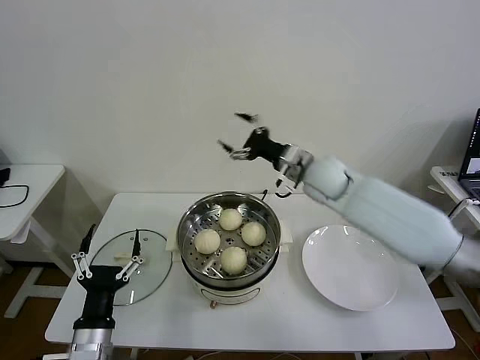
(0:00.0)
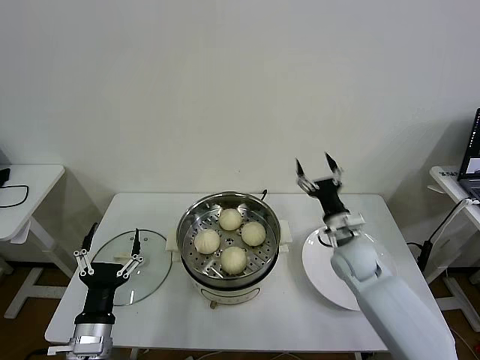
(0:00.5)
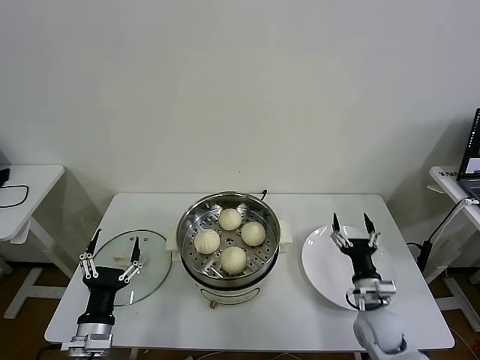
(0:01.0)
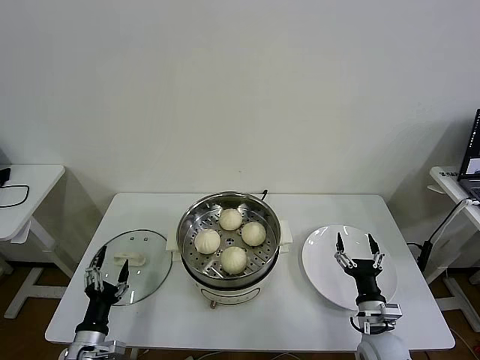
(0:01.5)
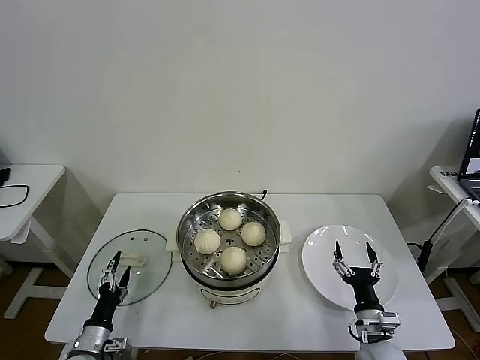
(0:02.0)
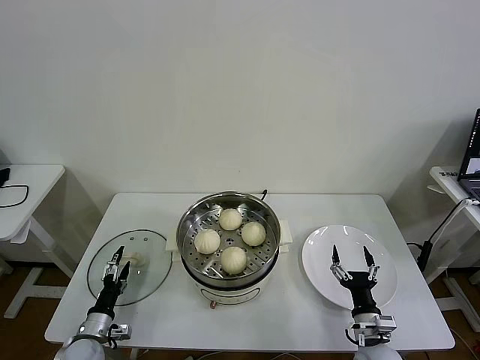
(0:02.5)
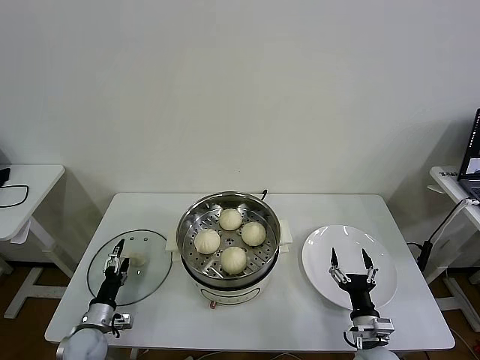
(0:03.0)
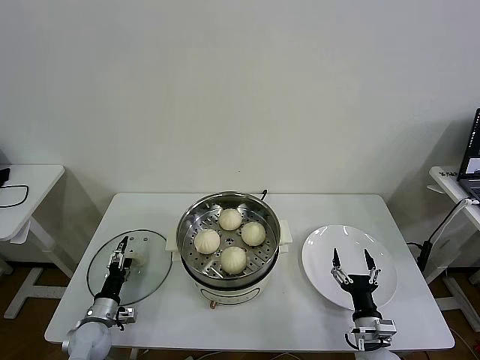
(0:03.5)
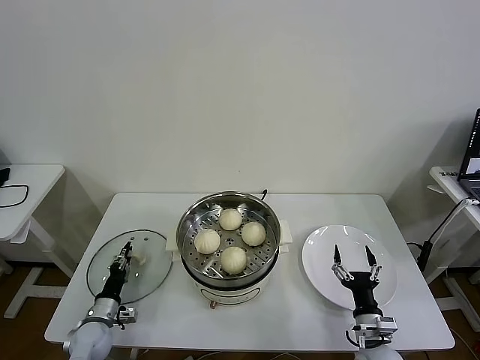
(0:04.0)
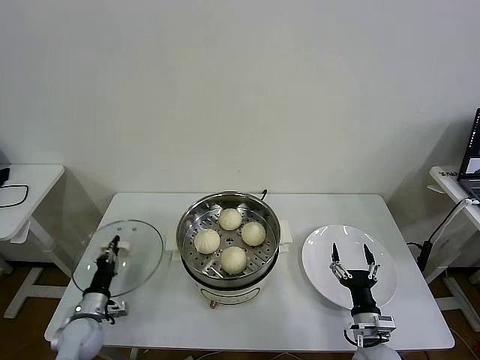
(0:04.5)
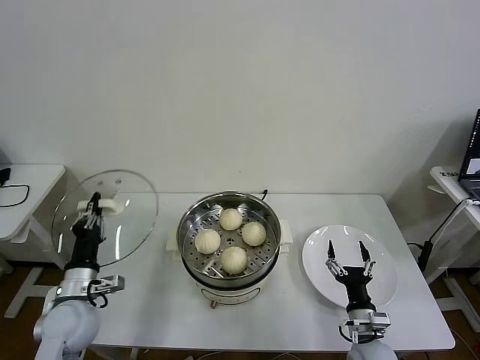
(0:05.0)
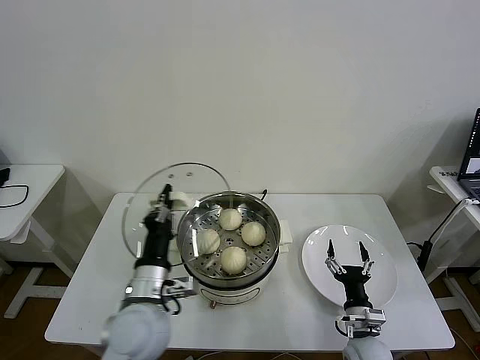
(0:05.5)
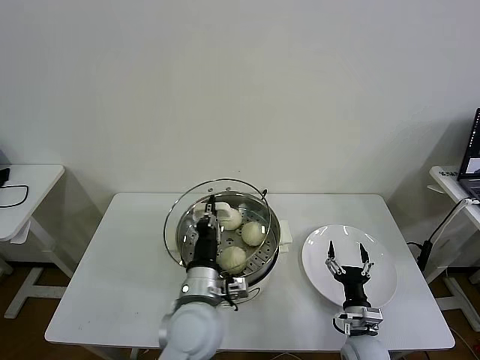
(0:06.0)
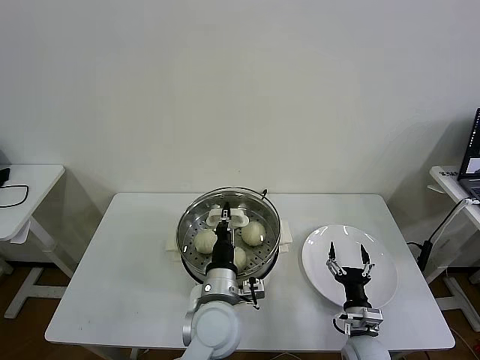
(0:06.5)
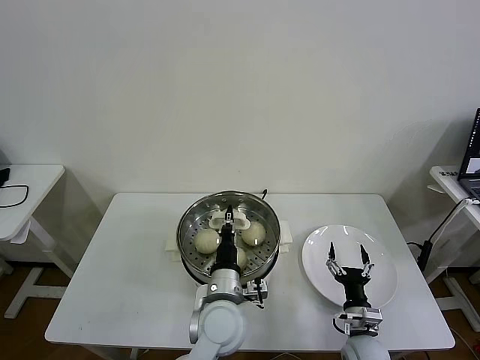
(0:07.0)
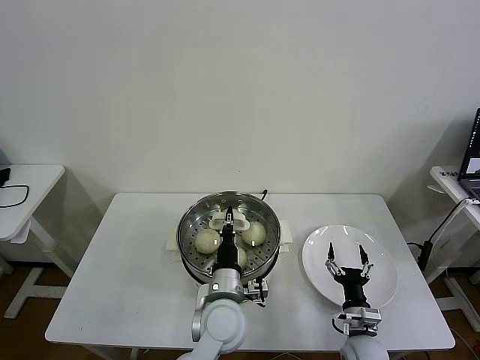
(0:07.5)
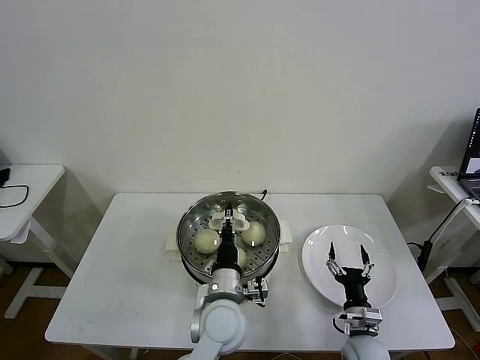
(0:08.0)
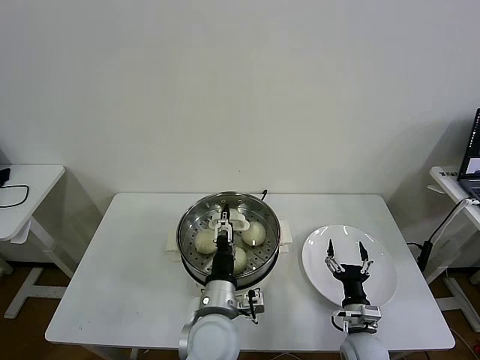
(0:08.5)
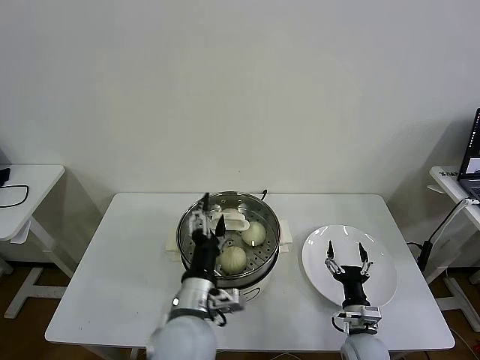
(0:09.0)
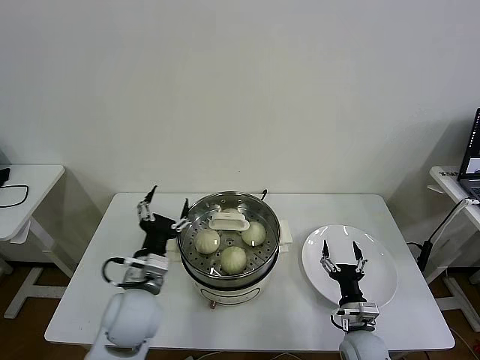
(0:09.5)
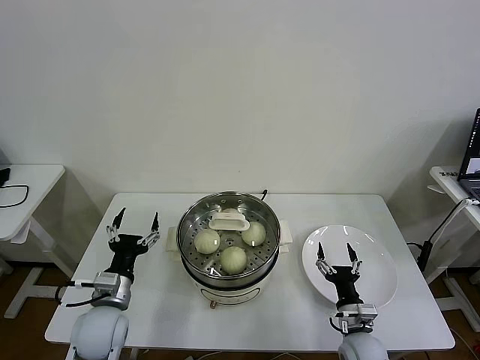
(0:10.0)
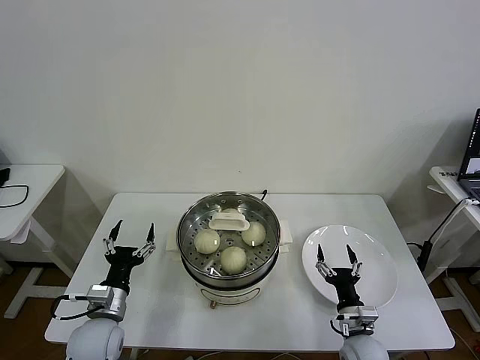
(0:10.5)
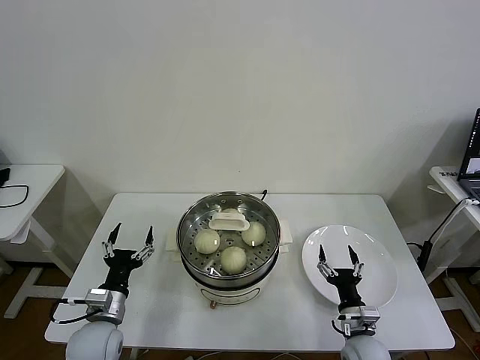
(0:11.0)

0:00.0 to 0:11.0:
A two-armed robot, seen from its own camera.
Task of the whole recording: take steamed baozi put them in steamer then cover it.
Step, 0:00.0 to 0:04.5: Grasp the pot lid with left gripper.
Step, 0:05.0 to 0:08.0: Place the pot lid on the steamer with left gripper.
0:00.0 to 0:02.0: The left gripper moves downward and to the left, some 20 cm. Meanwhile the right gripper travels backward, downward and to the right by about 40 cm.
0:02.0 to 0:03.5: The left gripper is displaced forward by some 10 cm.
0:03.5 to 0:05.5: The left gripper heads upward and to the right, covering roughly 30 cm, and closes.
0:05.5 to 0:07.5: The left gripper is displaced to the right and downward by about 15 cm.
0:07.5 to 0:09.0: The left gripper moves upward and backward, approximately 10 cm, and opens up.
0:09.0 to 0:11.0: The left gripper heads to the left and downward, covering roughly 25 cm.

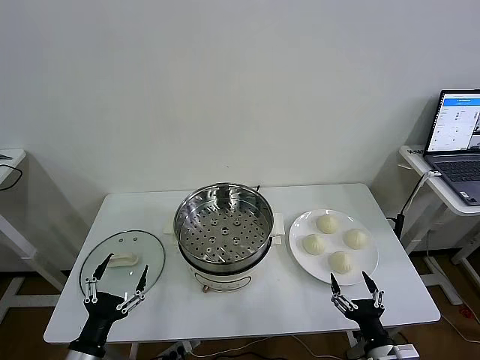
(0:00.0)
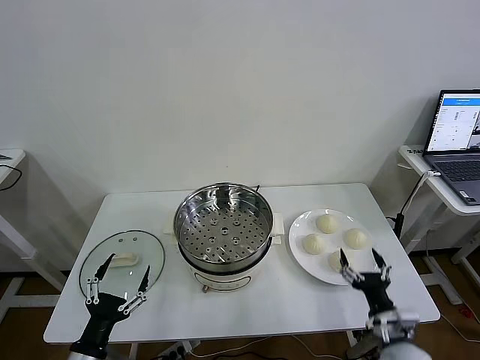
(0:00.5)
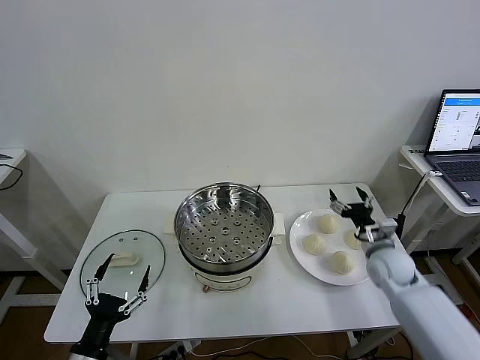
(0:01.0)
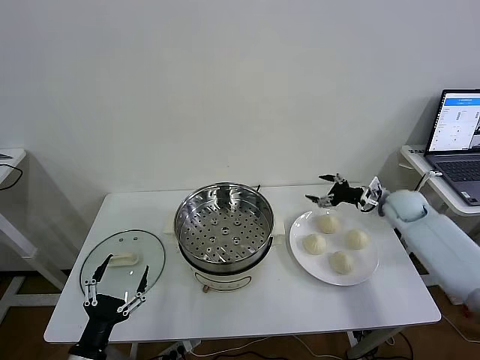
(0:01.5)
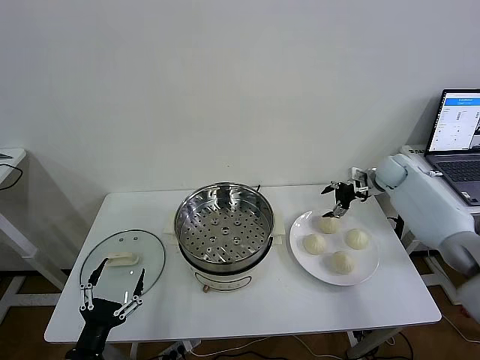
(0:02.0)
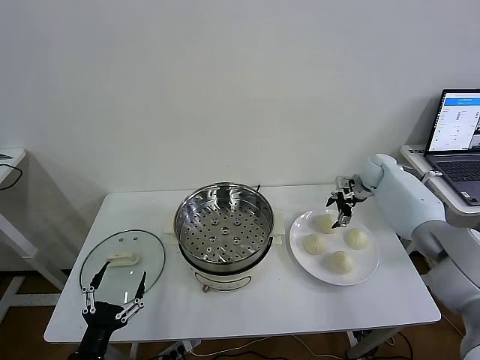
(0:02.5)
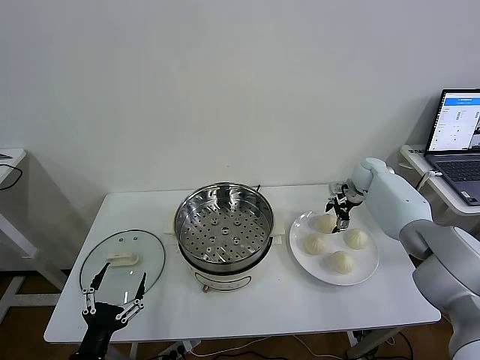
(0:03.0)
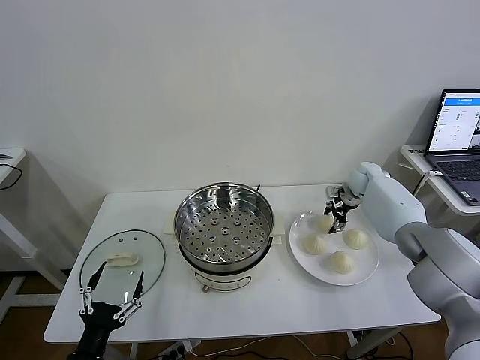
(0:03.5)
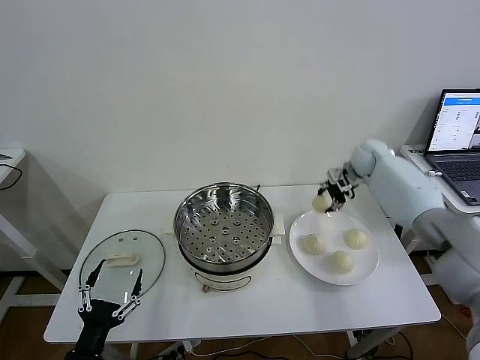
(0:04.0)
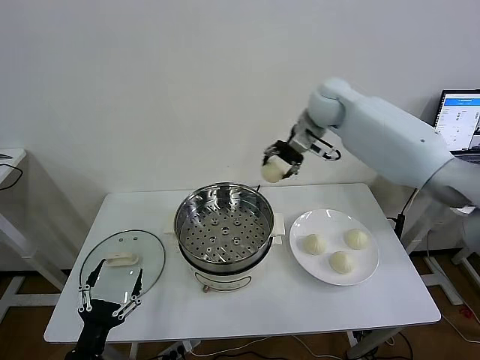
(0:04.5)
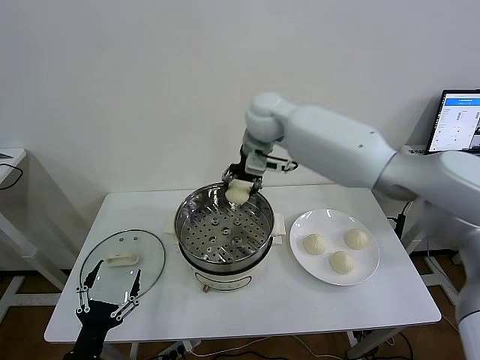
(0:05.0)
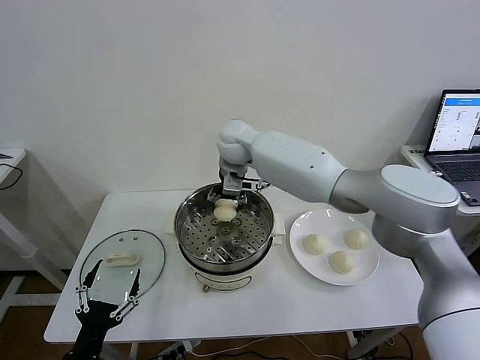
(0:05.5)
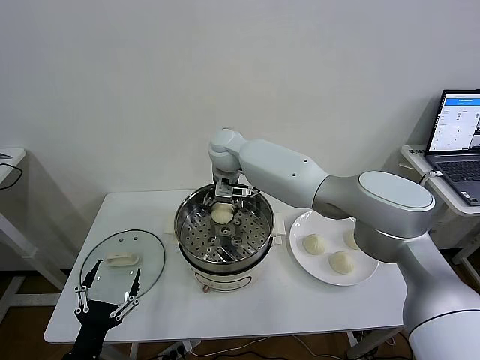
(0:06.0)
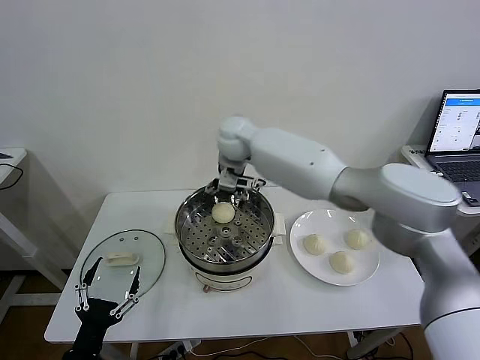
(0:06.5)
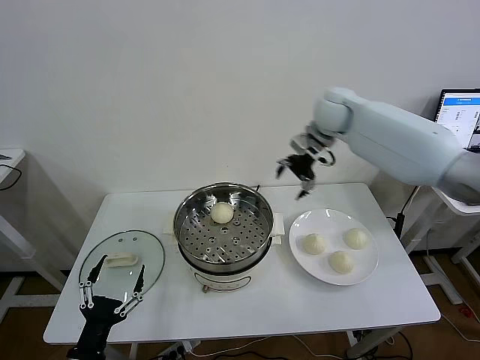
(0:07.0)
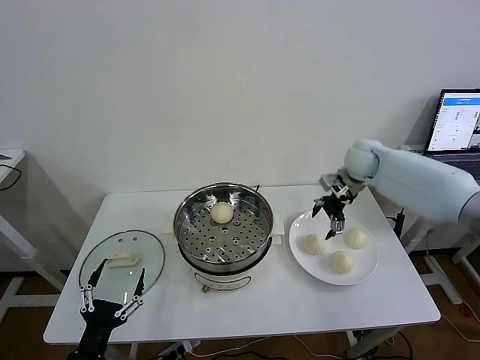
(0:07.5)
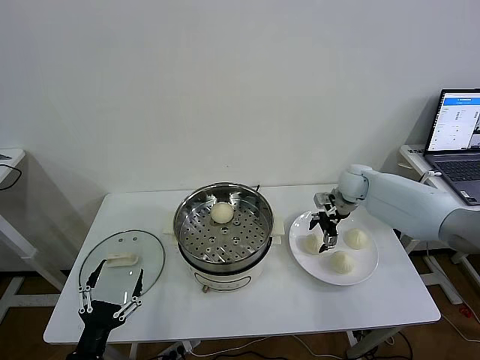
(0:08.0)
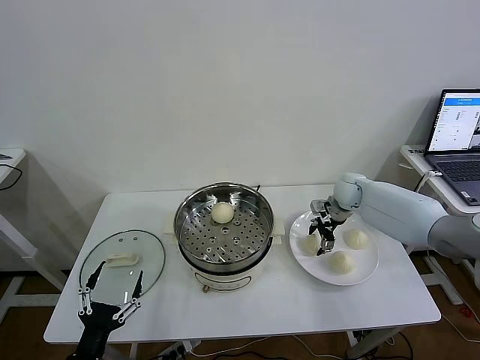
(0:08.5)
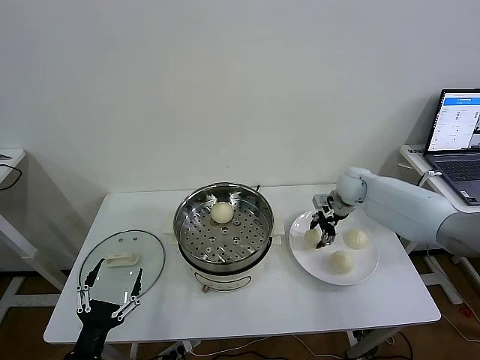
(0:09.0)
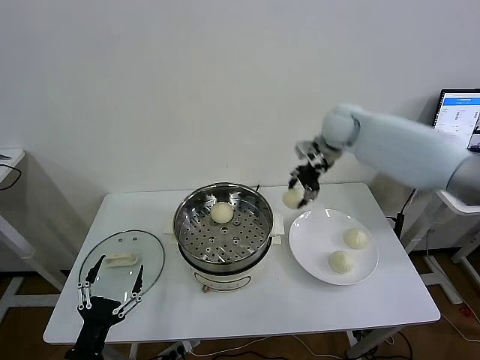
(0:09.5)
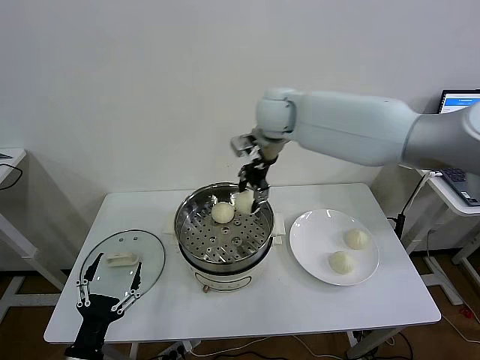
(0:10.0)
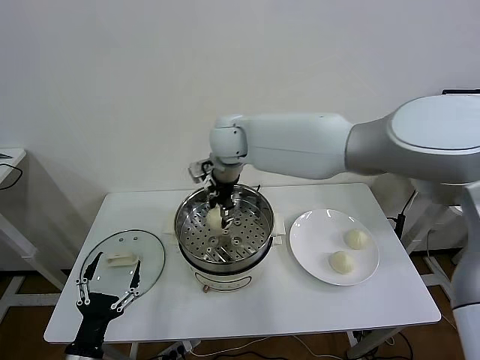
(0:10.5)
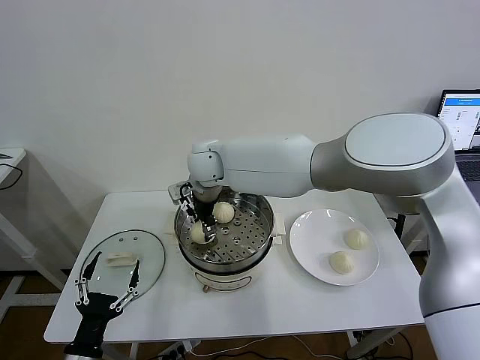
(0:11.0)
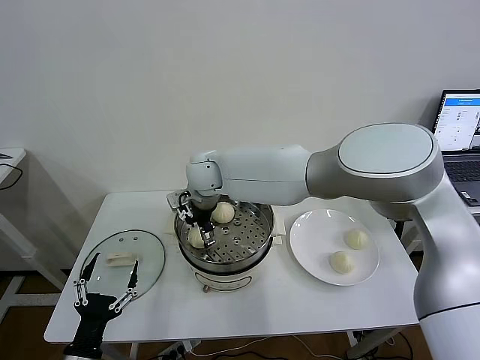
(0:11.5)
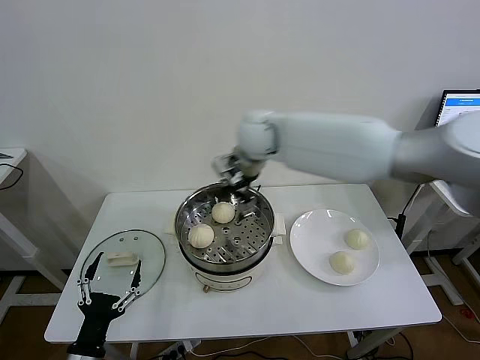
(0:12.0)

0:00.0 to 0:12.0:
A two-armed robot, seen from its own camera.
Task of the whole recording: take steamed baozi put them in steamer then cover it.
Step, 0:00.0 to 0:03.5: Grasp the baozi in the plate with right gripper.
Step, 0:04.0 to 0:06.0: Place the baozi on the steamer with right gripper.
Step, 0:06.5 to 0:08.5: Grasp the baozi in the plate with right gripper.
Step, 0:09.0 to 0:11.5: Place the baozi on the steamer with right gripper.
0:02.0 to 0:04.0: The right gripper shifts about 10 cm to the left and upward, and closes up.
0:04.0 to 0:06.0: The right gripper moves to the left, about 35 cm, and opens its fingers.
0:06.0 to 0:08.0: The right gripper is displaced to the right by about 35 cm.
0:08.0 to 0:10.0: The right gripper heads to the left and upward, covering some 35 cm, and closes its fingers.
0:10.0 to 0:12.0: The right gripper travels to the left and back again, roughly 15 cm each way, and opens its fingers.

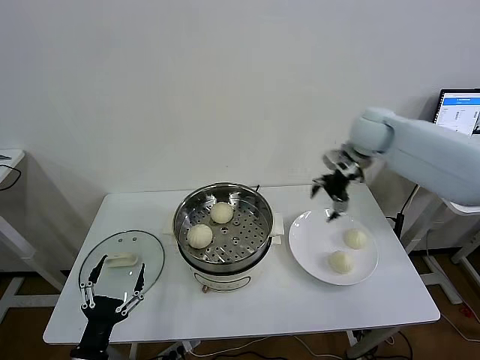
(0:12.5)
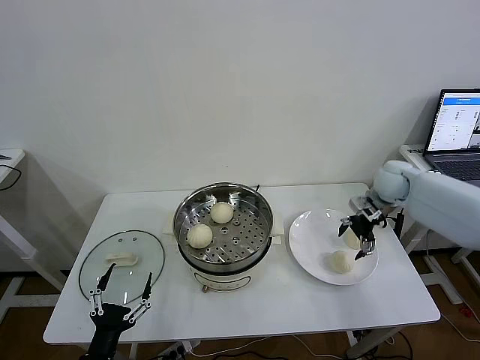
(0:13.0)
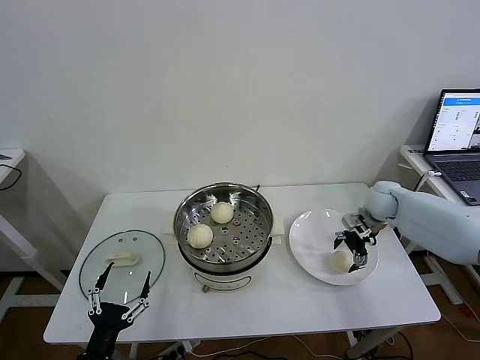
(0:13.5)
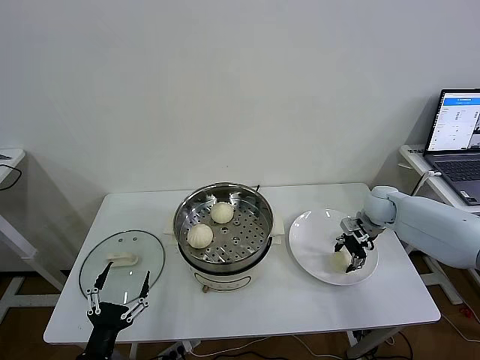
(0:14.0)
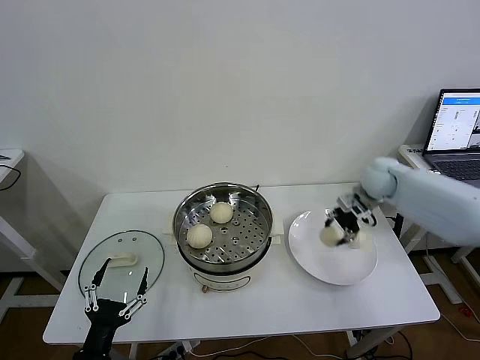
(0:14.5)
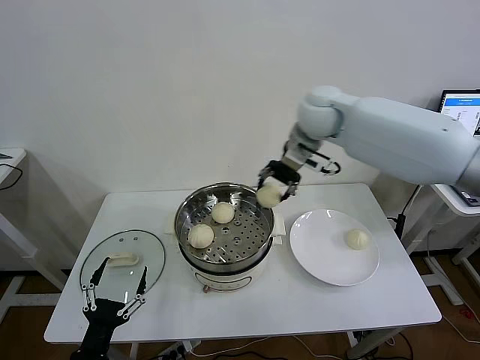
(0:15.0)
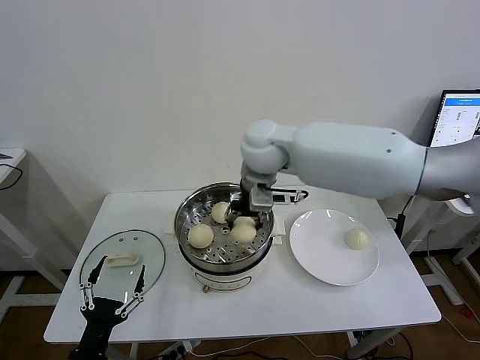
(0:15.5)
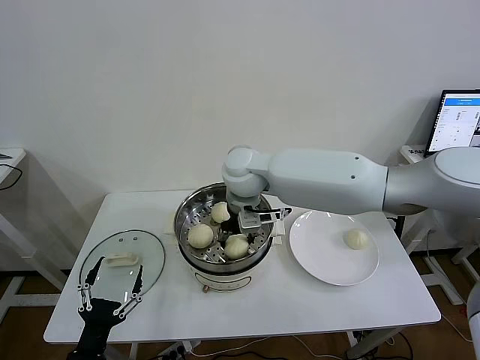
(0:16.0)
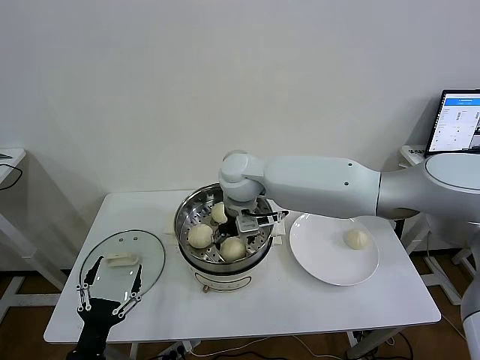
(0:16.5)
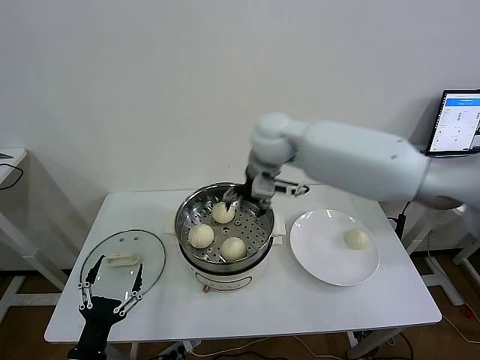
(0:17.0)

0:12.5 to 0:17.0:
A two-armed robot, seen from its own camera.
Task of the whole recording: take steamed baozi put them in steamer then cover it.
Step, 0:14.5 to 0:16.0: Place the baozi on the steamer with right gripper.
0:12.5 to 0:14.5: The right gripper heads downward, covering roughly 10 cm, and closes up.
0:14.5 to 0:17.0: The right gripper heads to the left and upward, covering about 30 cm, and opens its fingers.
